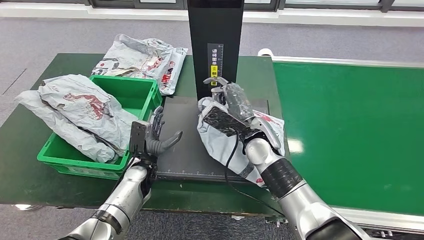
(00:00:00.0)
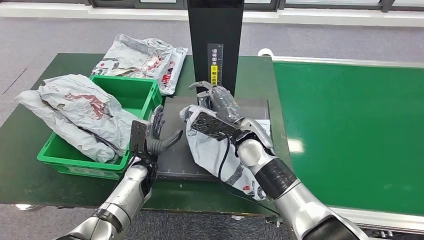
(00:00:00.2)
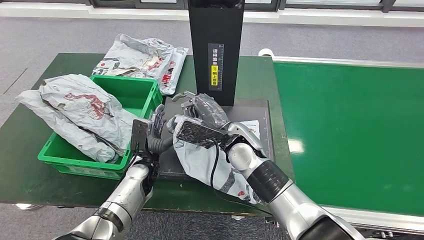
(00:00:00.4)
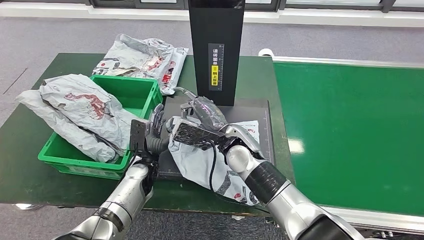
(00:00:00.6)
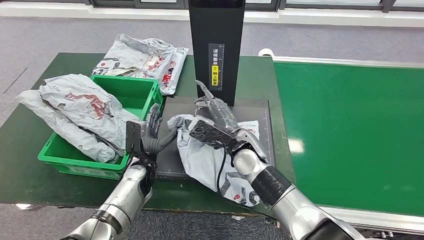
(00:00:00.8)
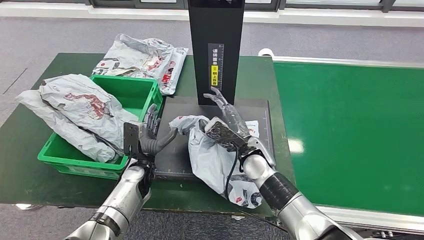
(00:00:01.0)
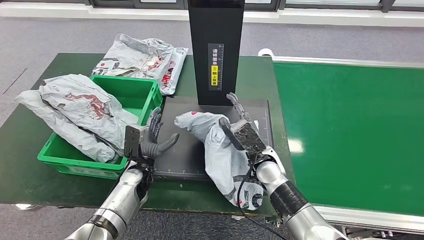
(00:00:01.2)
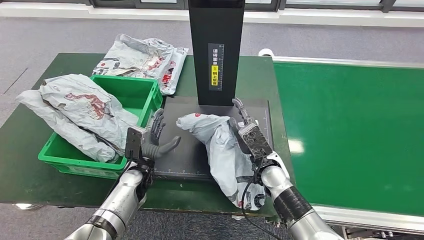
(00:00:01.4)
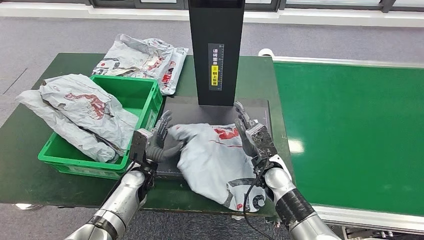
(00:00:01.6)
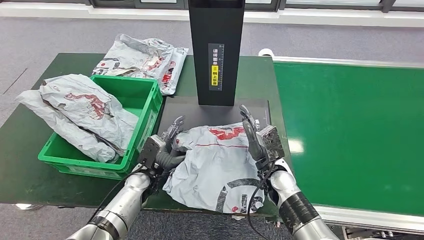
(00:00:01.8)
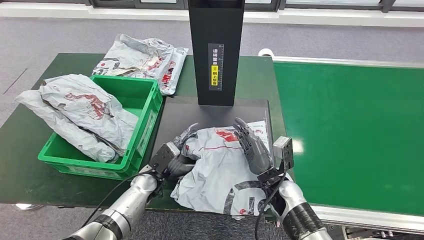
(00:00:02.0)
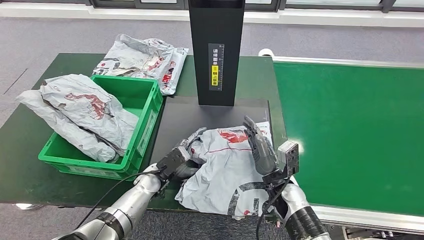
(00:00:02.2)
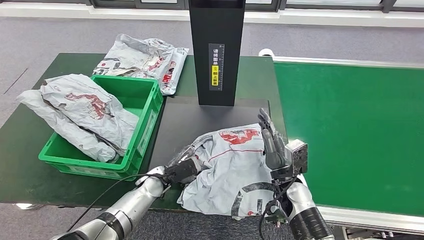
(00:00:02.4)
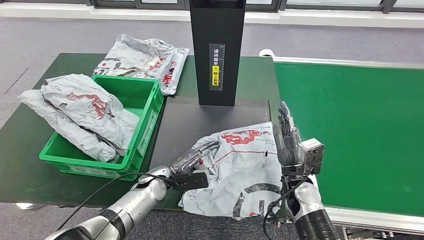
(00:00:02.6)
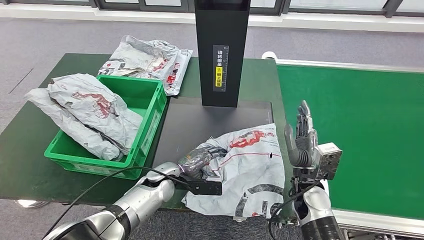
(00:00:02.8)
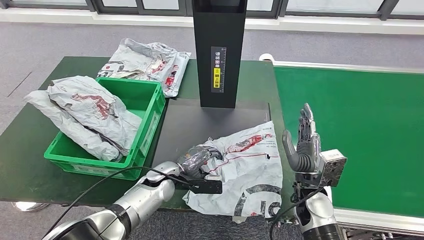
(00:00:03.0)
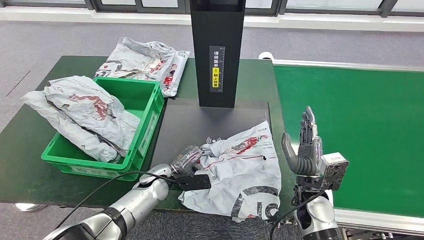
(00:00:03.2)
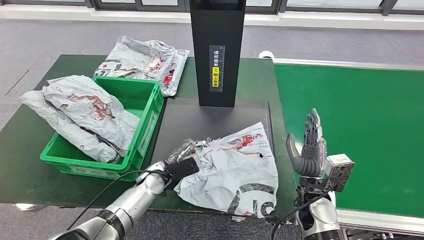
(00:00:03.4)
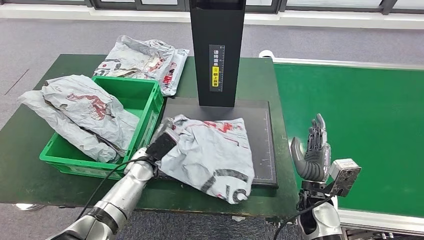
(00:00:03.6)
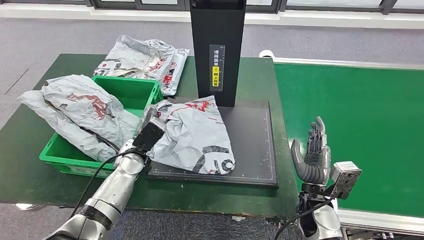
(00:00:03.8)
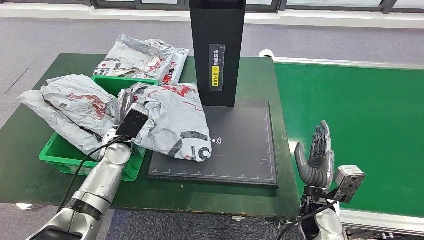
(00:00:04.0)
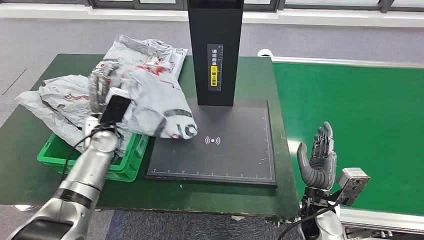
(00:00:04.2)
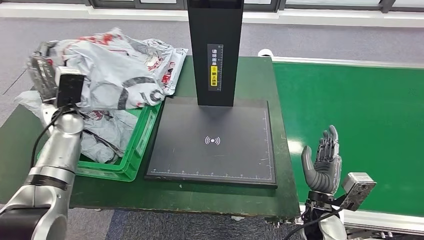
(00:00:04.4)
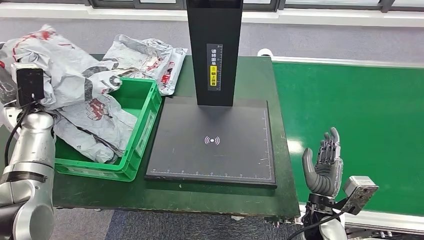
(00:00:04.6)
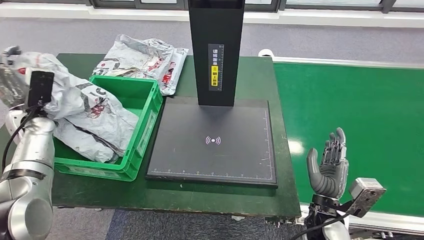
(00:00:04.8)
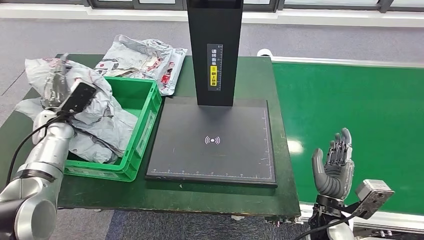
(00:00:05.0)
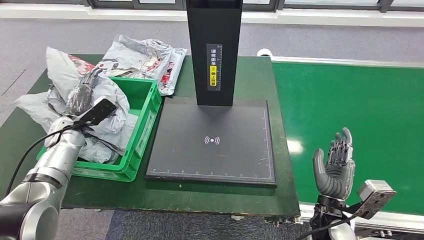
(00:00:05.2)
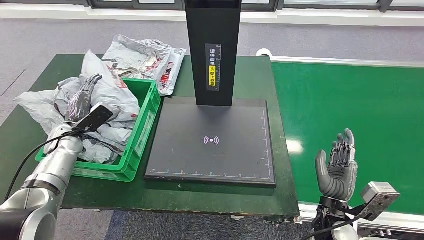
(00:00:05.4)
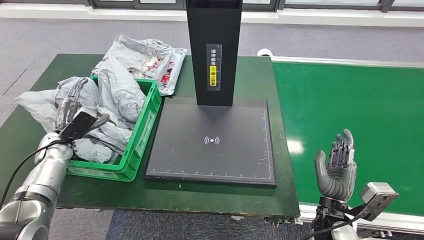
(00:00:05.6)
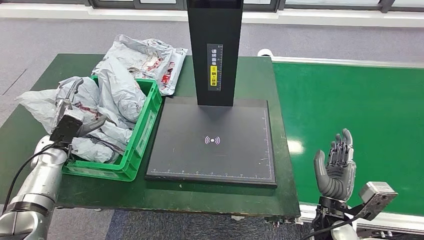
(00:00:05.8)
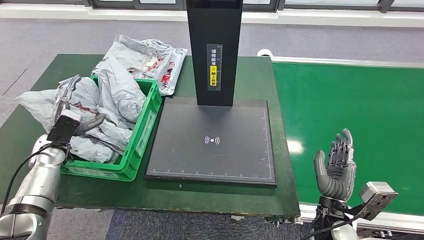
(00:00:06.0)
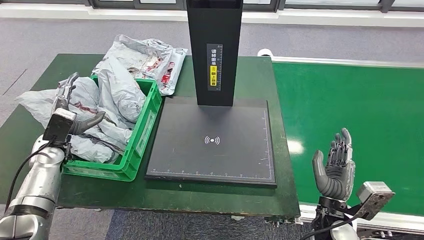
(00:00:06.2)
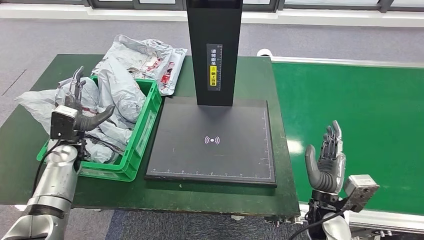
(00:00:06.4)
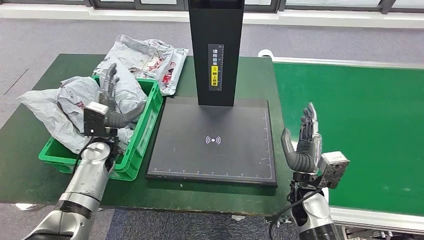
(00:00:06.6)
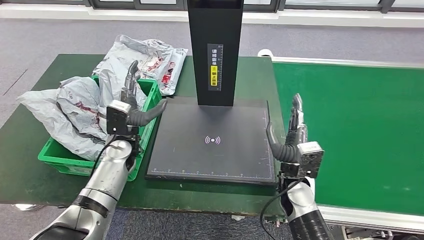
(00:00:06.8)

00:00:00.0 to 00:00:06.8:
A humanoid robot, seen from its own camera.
Step, 00:00:00.6 to 00:00:02.8: Place the parcel onto the inbound machine.
Step, 00:00:03.0 to 00:00:04.6: Pick up the parcel from the inbound machine.
Step, 00:00:05.0 to 00:00:06.8: Place the parcel into the delivery box.
00:00:00.0 to 00:00:01.4: The right hand moves downward, approximately 10 cm.
